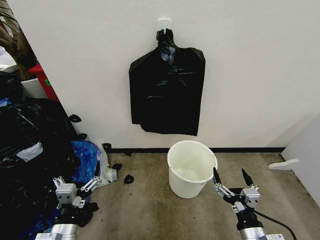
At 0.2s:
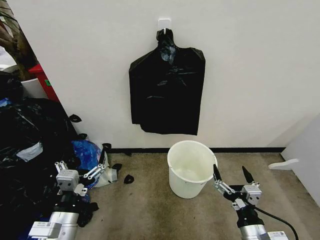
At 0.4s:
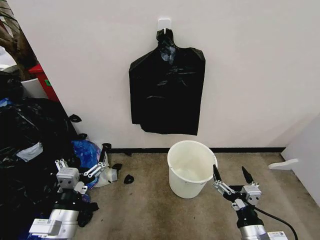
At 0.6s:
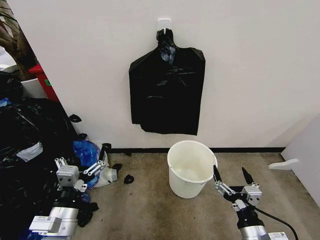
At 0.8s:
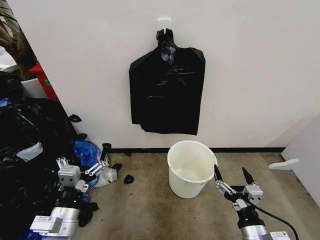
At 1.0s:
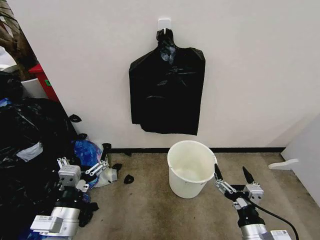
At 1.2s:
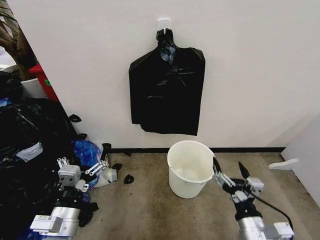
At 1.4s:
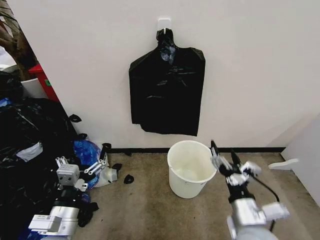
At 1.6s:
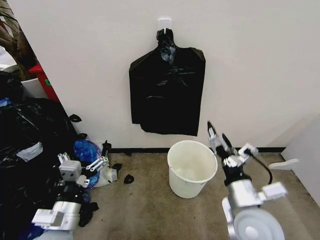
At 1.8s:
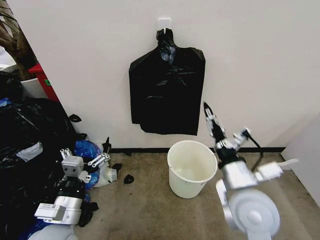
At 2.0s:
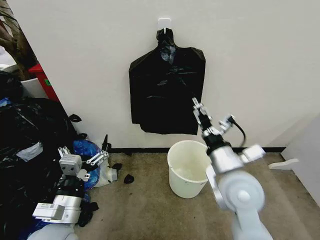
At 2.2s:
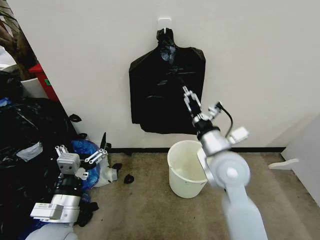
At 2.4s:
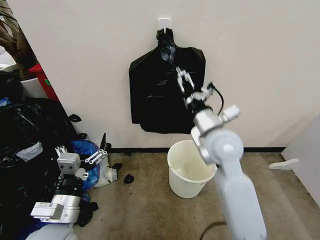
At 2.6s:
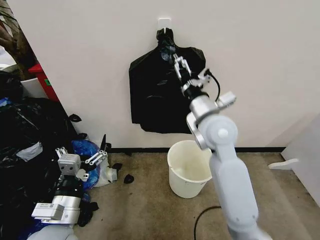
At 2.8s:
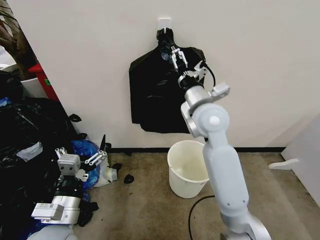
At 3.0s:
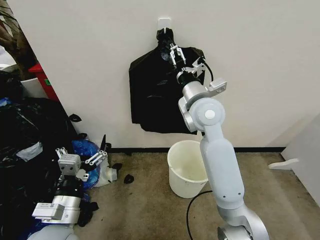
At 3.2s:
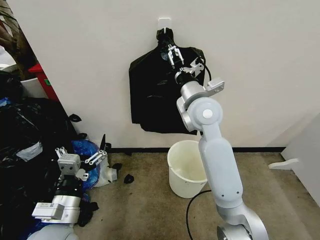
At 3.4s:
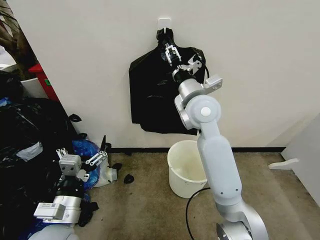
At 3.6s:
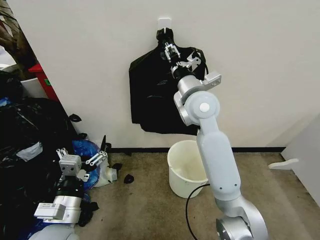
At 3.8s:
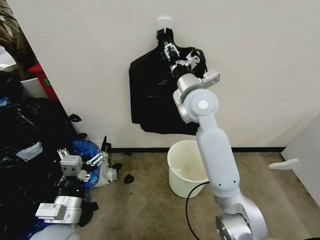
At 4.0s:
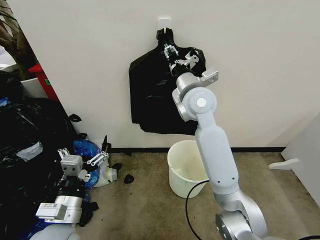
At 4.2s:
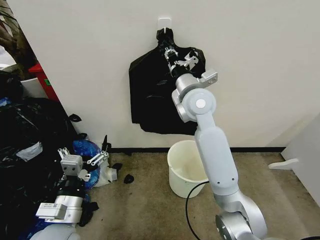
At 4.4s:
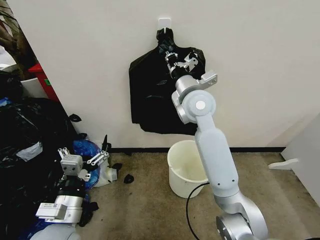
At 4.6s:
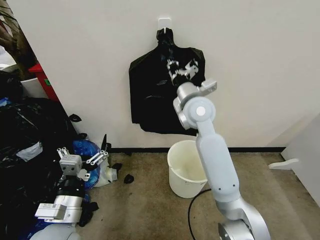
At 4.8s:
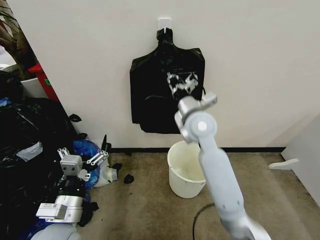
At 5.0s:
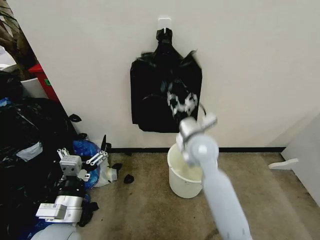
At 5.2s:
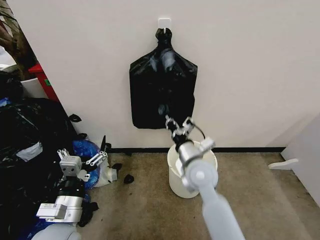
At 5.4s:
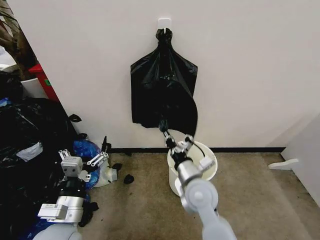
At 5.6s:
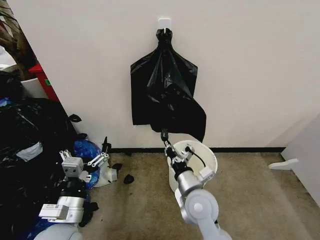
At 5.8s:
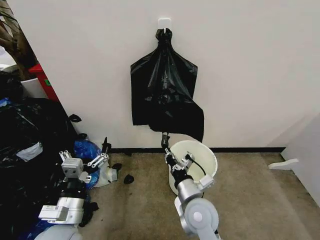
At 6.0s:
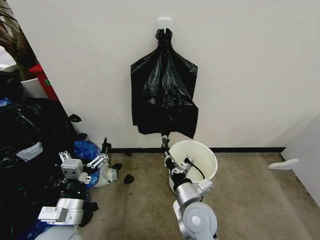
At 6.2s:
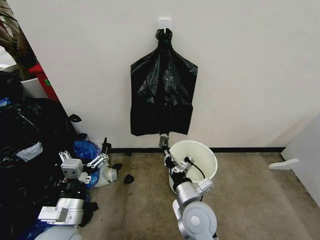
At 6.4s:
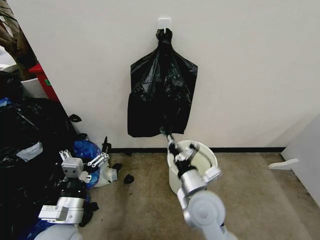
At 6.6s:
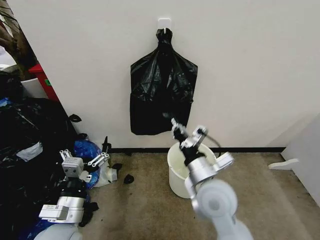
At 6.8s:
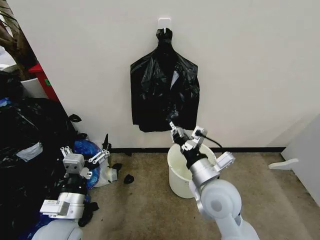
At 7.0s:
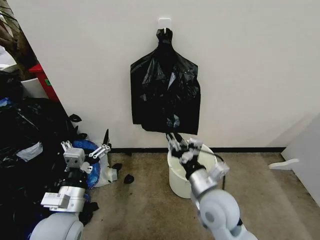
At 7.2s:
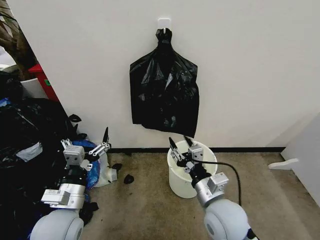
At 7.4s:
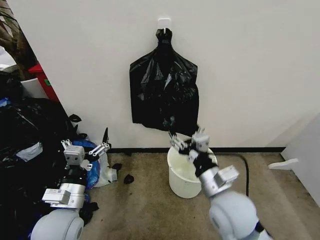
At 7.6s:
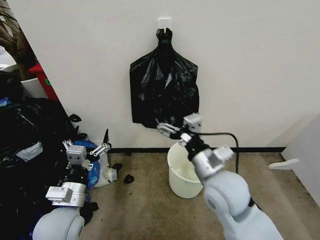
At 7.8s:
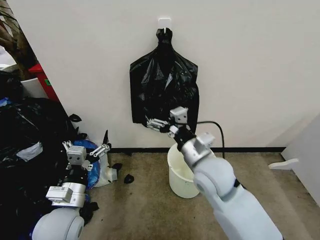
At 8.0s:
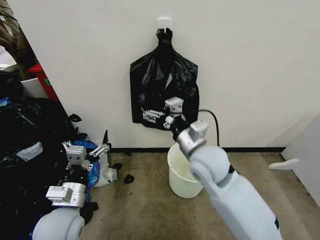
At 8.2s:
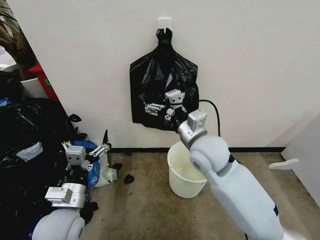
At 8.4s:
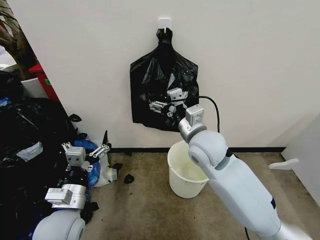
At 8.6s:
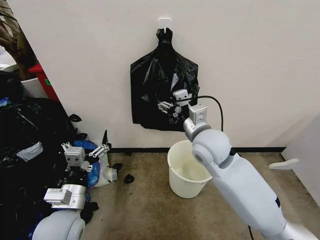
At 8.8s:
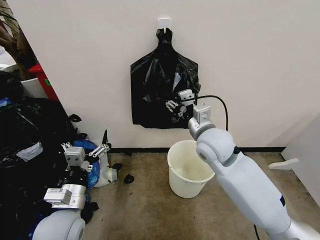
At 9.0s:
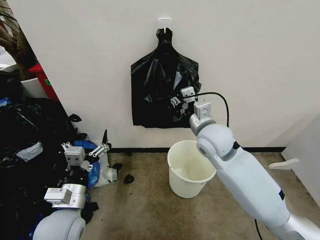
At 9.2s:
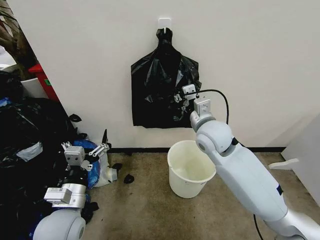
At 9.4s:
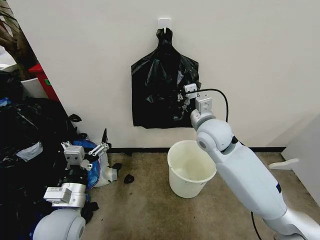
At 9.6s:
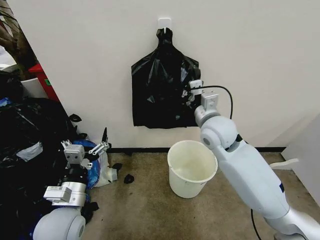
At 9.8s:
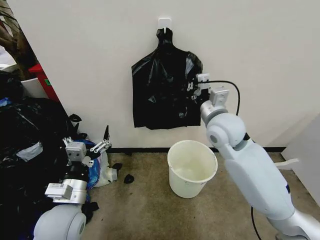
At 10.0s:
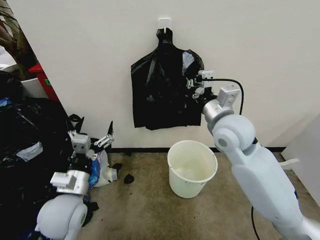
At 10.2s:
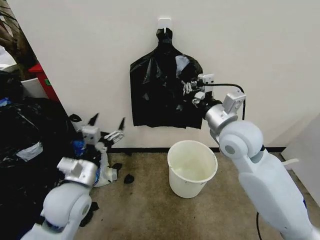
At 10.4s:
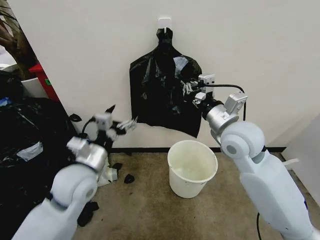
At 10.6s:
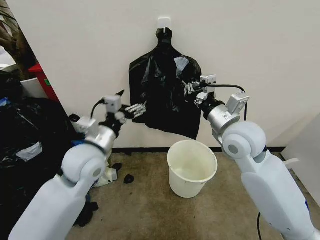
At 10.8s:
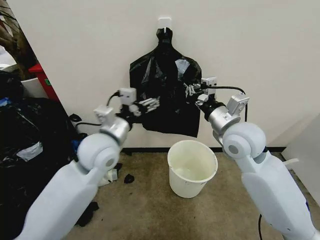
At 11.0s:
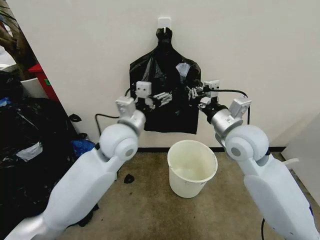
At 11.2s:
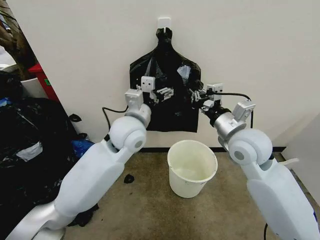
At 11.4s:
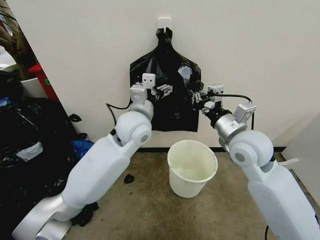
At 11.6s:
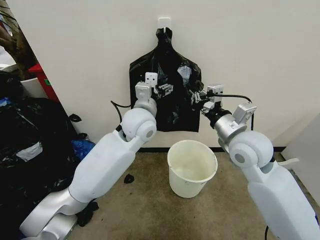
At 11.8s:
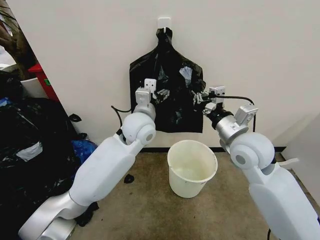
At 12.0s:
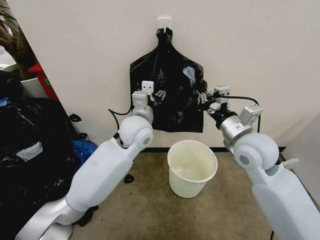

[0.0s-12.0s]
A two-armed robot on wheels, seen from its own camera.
Task of the whole recording: Place the garbage bag over the trash bin.
1.6s to 3.0s: The right gripper moves forward and upward, roughly 25 cm.
3.0s to 4.4s: The right gripper closes up.
4.4s to 6.0s: The right gripper moves downward and backward, some 30 cm.
6.0s to 7.6s: The right gripper goes up and down, roughly 15 cm each way, reversing 2 times, and opens up.
7.6s to 9.0s: The right gripper shifts some 15 cm forward, and closes.
9.0s to 10.4s: The right gripper goes some 5 cm to the right, and closes up; the left gripper moves forward and upward, some 10 cm.
10.4s to 12.0s: The left gripper heads to the right and forward, covering some 20 cm, and closes its fingers.

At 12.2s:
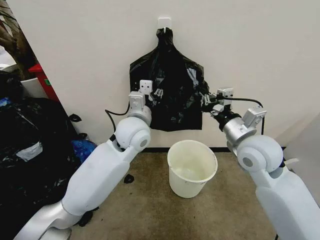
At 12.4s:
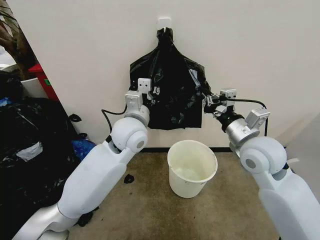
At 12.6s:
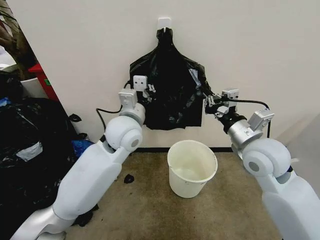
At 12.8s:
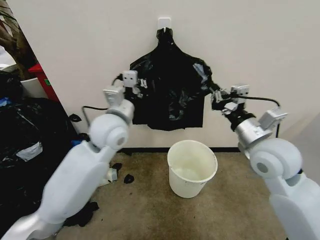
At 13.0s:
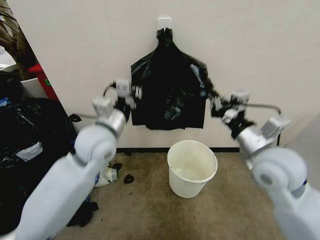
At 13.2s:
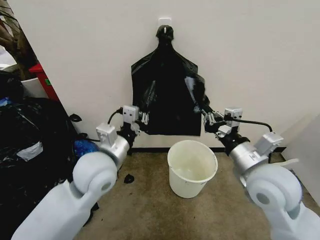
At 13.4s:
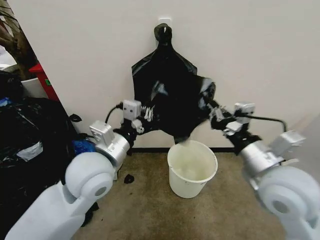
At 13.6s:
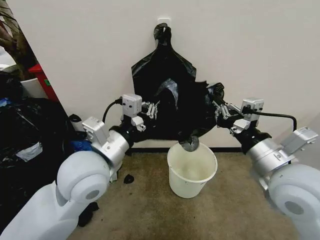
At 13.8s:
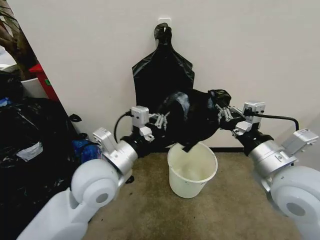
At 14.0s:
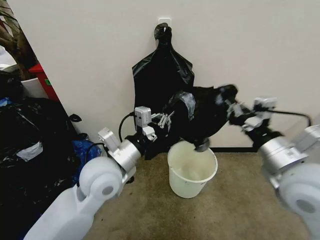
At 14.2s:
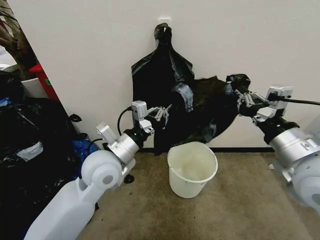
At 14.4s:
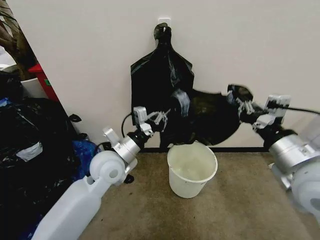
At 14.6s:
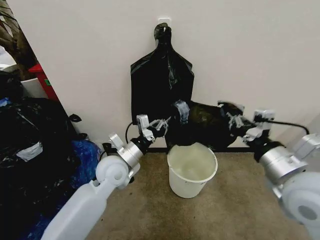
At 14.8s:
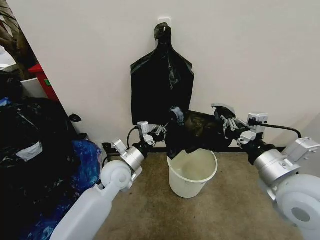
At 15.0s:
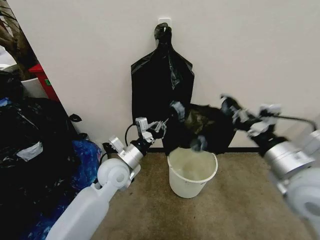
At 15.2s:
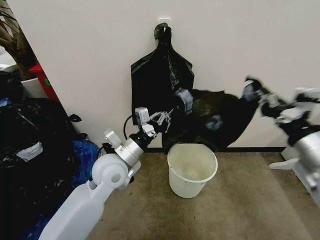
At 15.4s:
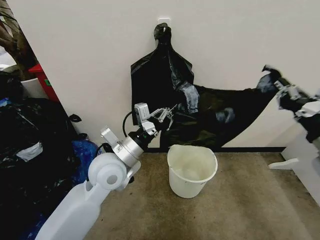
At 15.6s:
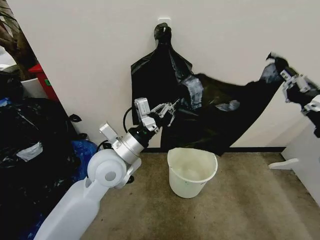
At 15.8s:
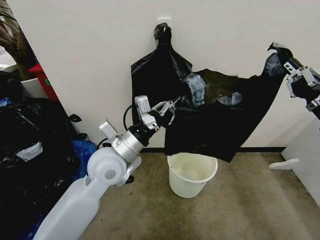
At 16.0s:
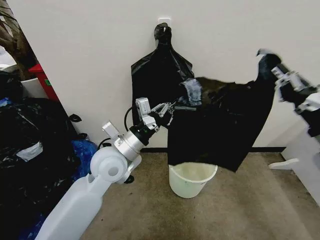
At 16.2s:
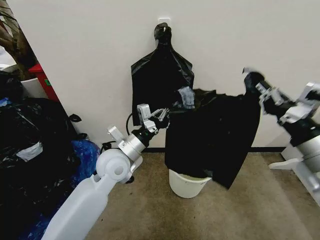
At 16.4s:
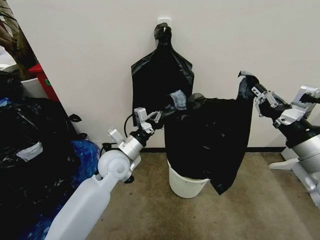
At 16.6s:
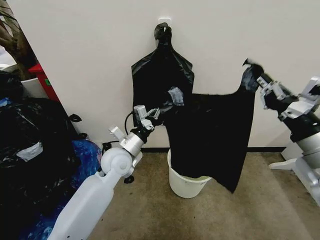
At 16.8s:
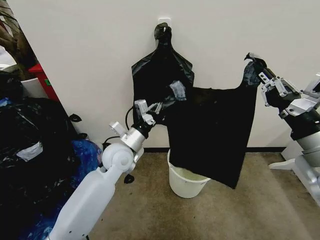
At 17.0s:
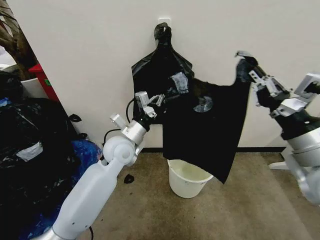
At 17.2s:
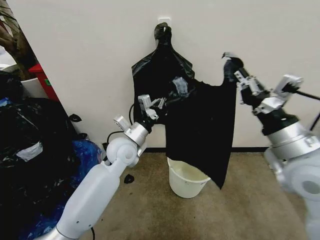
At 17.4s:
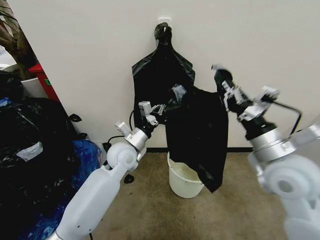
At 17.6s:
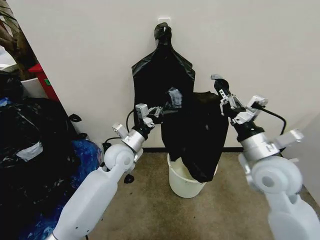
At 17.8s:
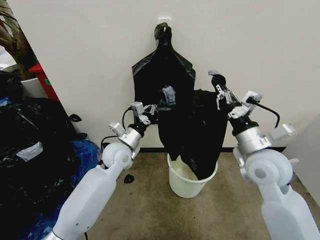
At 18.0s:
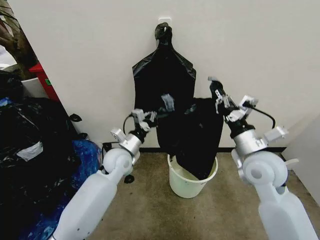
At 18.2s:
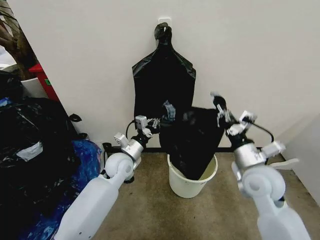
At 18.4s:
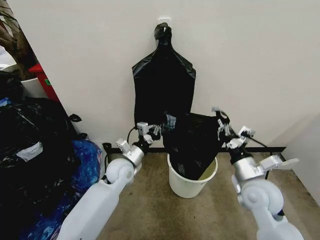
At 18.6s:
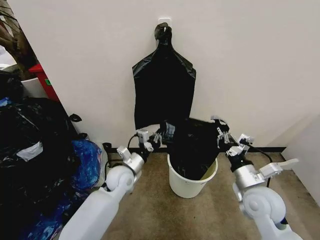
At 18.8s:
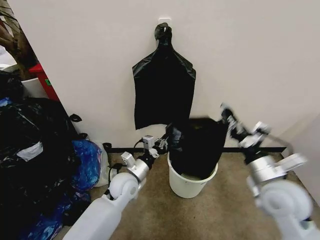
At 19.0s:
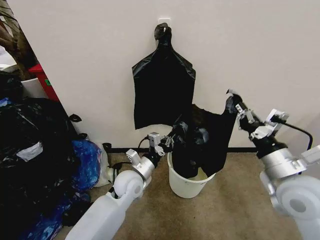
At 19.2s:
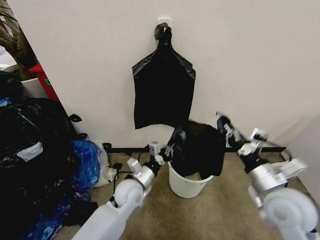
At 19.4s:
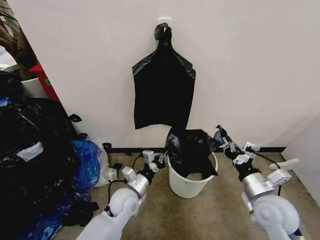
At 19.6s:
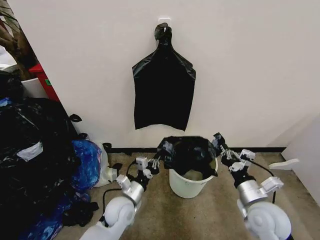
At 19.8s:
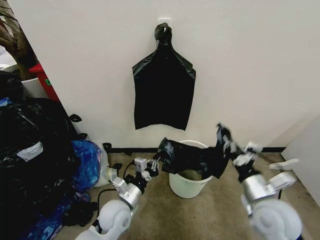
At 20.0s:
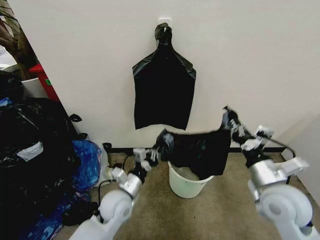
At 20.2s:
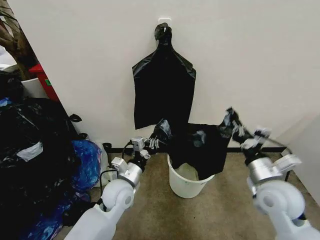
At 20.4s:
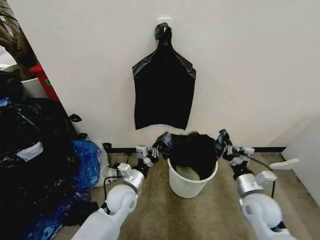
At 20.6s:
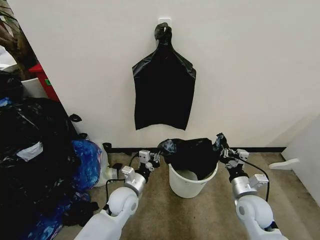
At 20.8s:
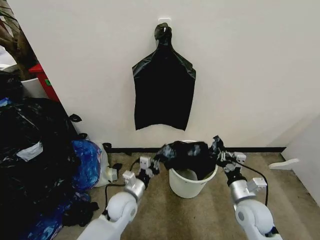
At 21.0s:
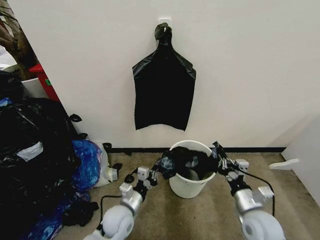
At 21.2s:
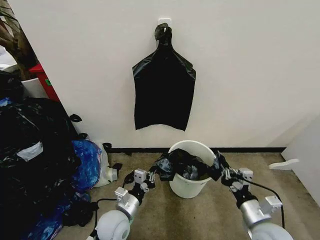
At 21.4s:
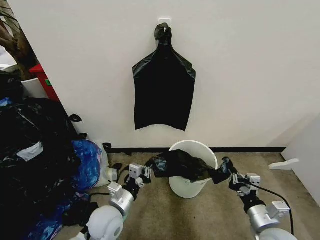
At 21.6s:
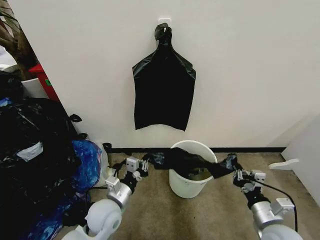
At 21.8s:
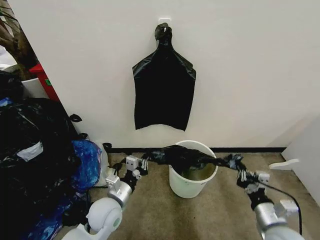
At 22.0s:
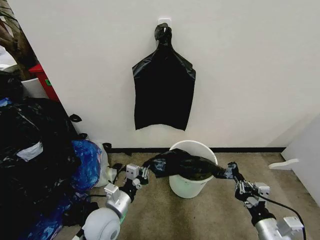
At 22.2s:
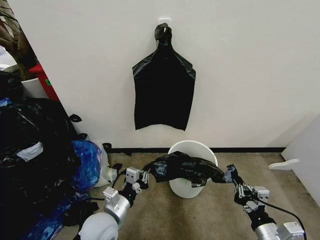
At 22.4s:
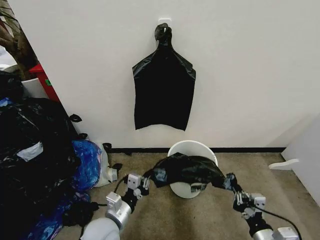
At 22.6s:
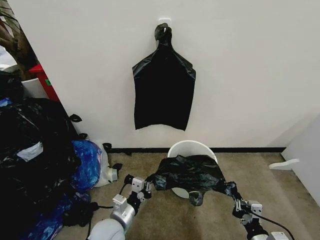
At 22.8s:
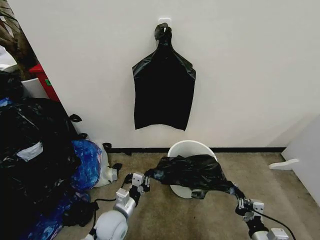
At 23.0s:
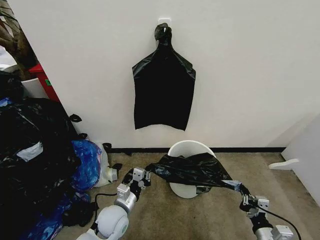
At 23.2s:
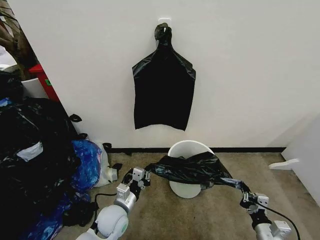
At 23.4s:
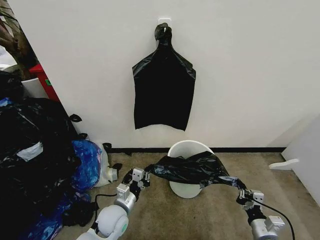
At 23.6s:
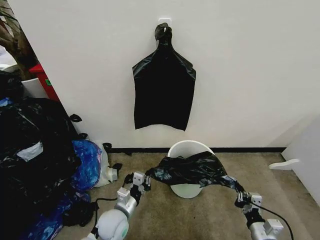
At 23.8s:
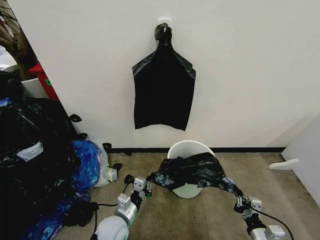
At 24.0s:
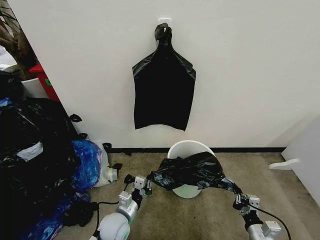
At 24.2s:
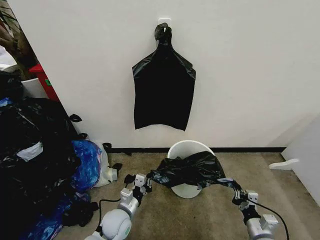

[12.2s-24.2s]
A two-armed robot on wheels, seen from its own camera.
Task of the whole recording: Place the garbage bag over the trash bin.
12.2s to 13.8s: The left gripper heads backward and to the left, covering some 15 cm, and closes its fingers, while the right gripper is displaced backward by some 10 cm.
13.8s to 15.2s: The right gripper is displaced to the right by about 5 cm; the left gripper goes about 10 cm downward and forward.
15.2s to 16.6s: The left gripper is displaced forward by about 5 cm.
16.6s to 18.2s: The right gripper is displaced downward and forward by roughly 15 cm; the left gripper goes roughly 5 cm downward.
18.2s to 19.8s: The left gripper shifts some 15 cm backward and downward; the right gripper swings up and down, roughly 15 cm each way, with 2 reversals.
19.8s to 21.2s: The left gripper reaches about 5 cm upward, then returns; the right gripper shifts approximately 5 cm downward.
21.2s to 22.6s: The right gripper shifts some 10 cm downward and backward.
22.6s to 24.2s: The left gripper travels downward by about 5 cm. The right gripper travels forward and downward by approximately 10 cm.
